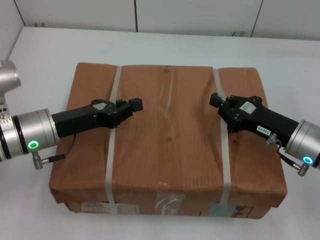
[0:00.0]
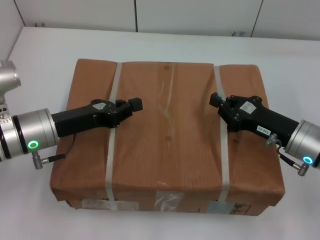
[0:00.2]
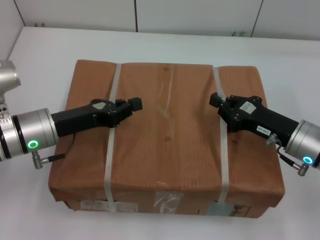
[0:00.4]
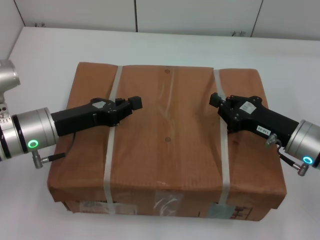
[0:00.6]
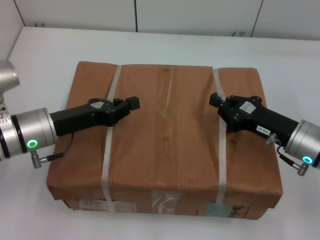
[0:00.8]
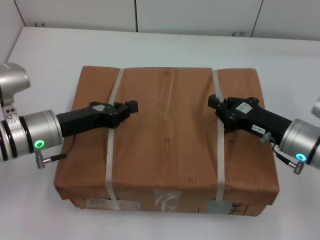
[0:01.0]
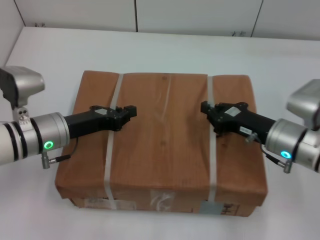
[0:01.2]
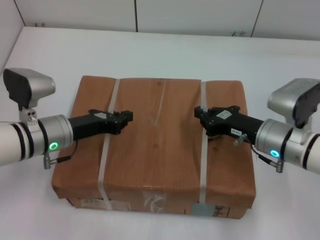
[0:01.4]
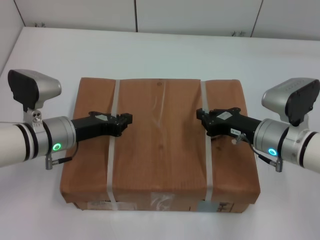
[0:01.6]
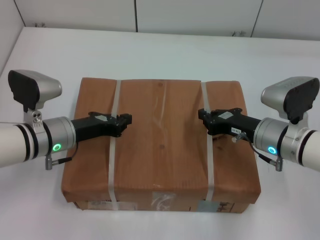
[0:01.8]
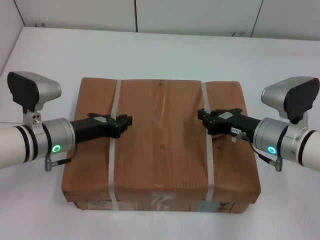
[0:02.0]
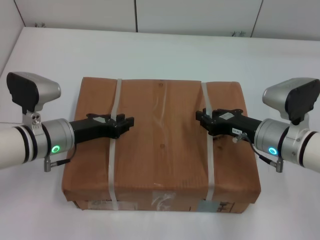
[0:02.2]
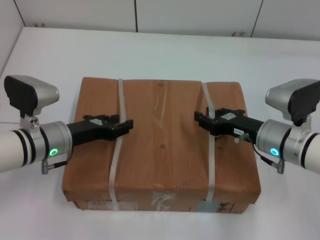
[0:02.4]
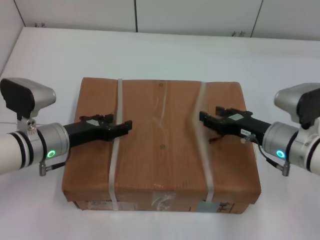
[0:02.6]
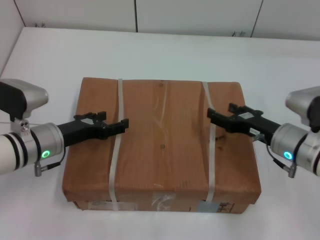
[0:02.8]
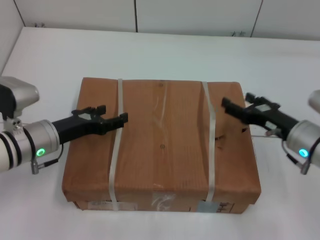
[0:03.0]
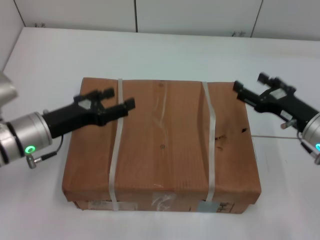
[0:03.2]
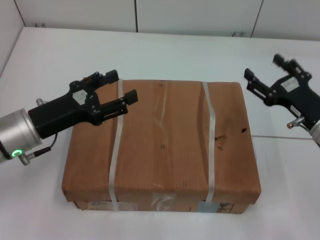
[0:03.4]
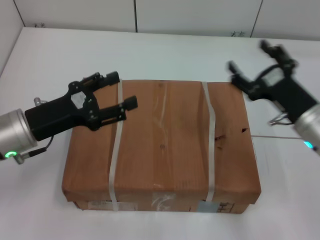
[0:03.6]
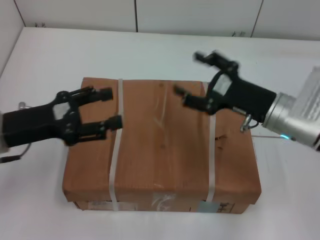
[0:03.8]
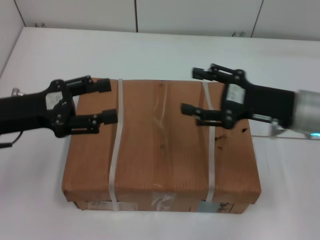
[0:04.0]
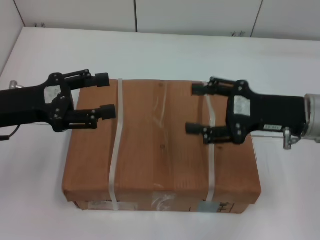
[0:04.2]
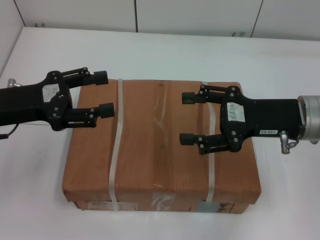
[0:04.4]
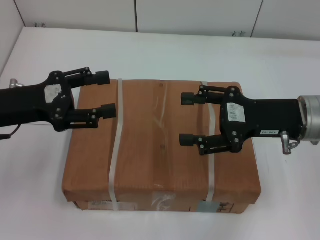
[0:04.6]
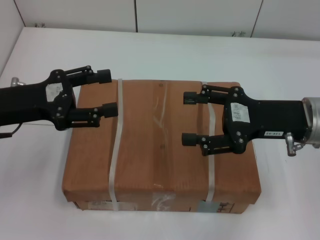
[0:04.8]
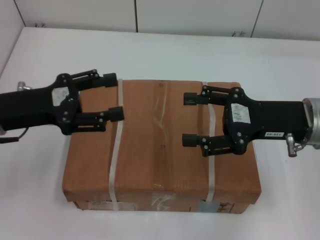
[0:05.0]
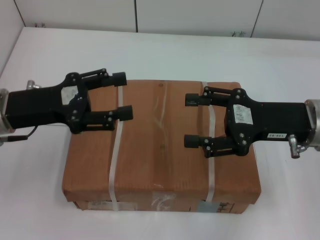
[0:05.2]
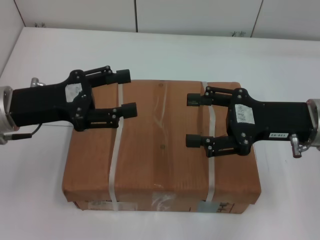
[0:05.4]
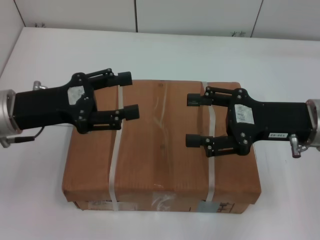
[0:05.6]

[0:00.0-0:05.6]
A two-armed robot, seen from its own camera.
Task of the whole recording: place the box on the table with both arms.
Step, 0:00.0 to 0:01.8: Place the box on the table with left gripper.
Step, 0:00.0 to 0:01.8: Place the box on the table with right gripper.
Step, 0:02.0 to 0:02.8: Loosen the box on the table with left gripper.
Step, 0:02.0 to 0:02.8: Loosen the box on the table with right gripper.
0:01.4 to 0:02.8: The left gripper opens its fingers, while the right gripper opens its fingers.
0:02.8 to 0:04.2: The left gripper heads upward and to the left, covering roughly 10 cm, and opens up, while the right gripper travels upward by some 10 cm.
0:04.2 to 0:05.6: The grippers make only small movements.
